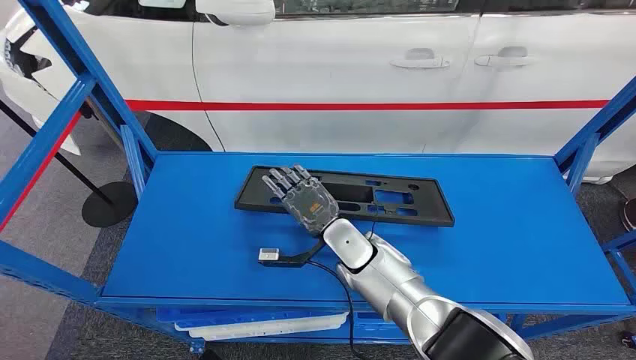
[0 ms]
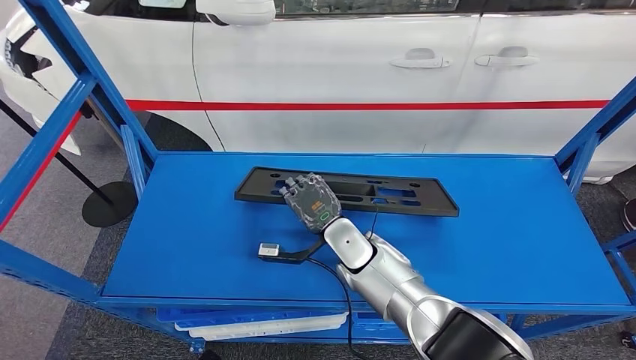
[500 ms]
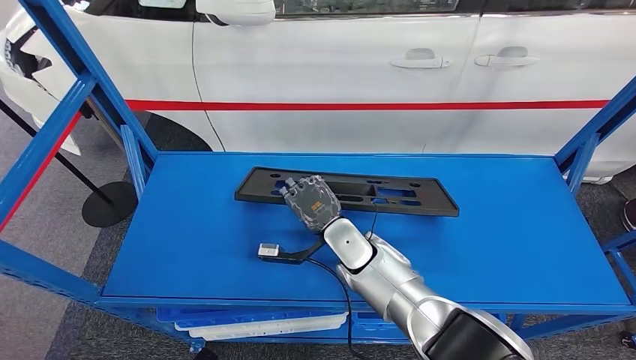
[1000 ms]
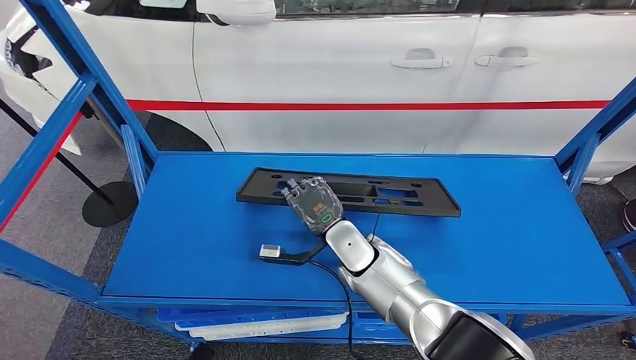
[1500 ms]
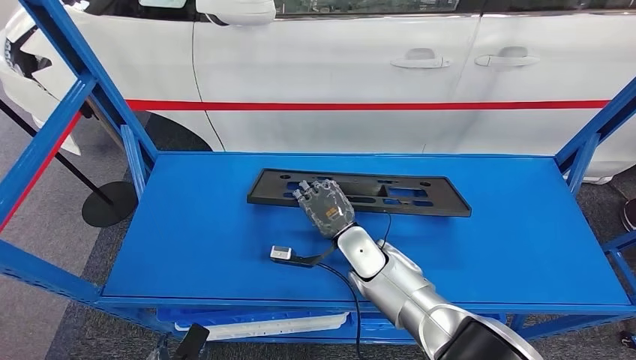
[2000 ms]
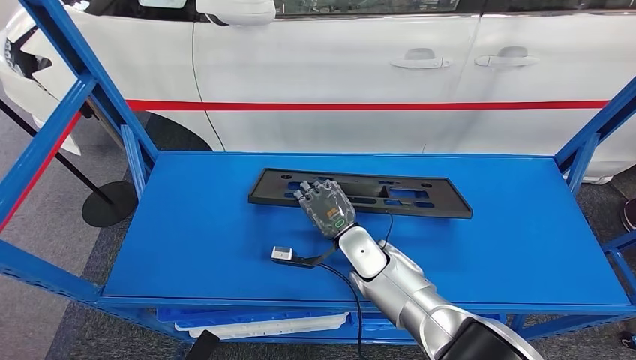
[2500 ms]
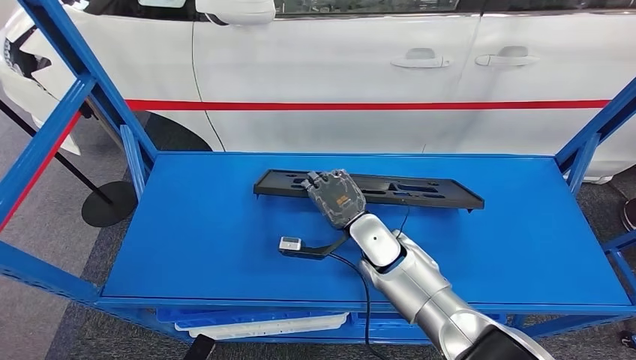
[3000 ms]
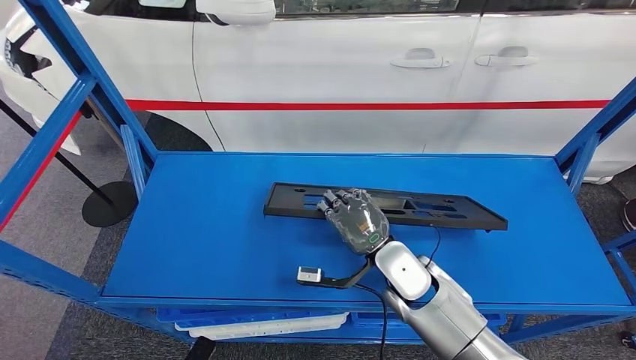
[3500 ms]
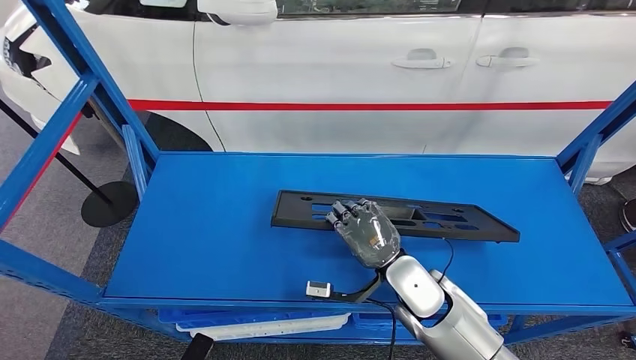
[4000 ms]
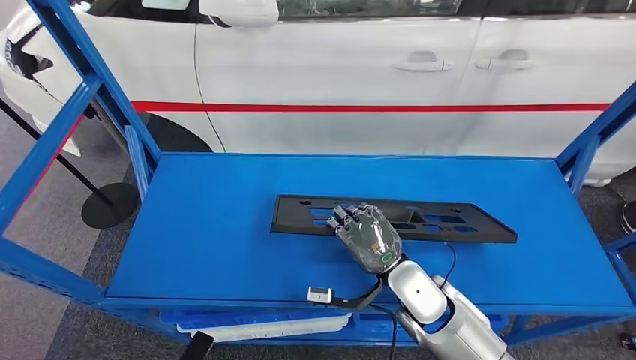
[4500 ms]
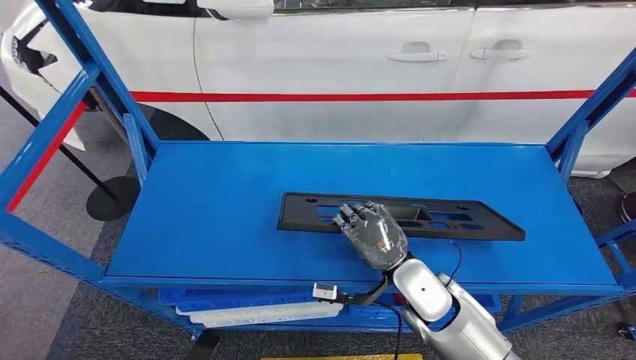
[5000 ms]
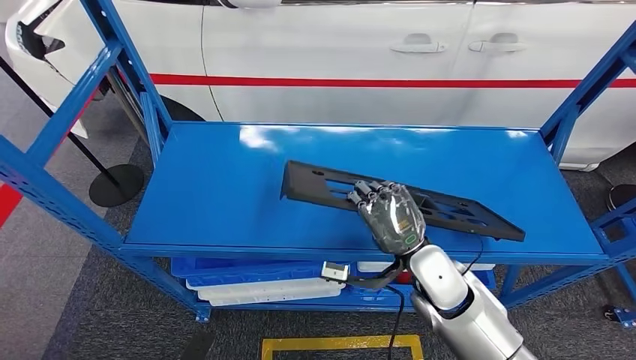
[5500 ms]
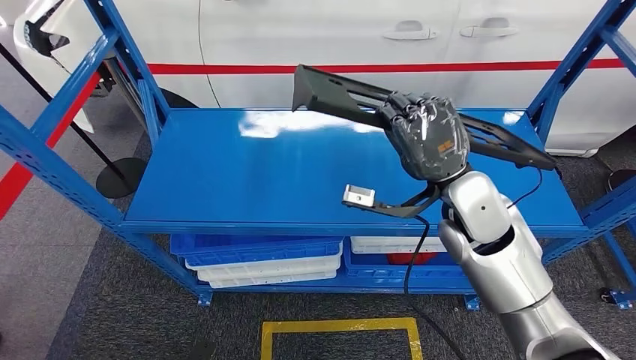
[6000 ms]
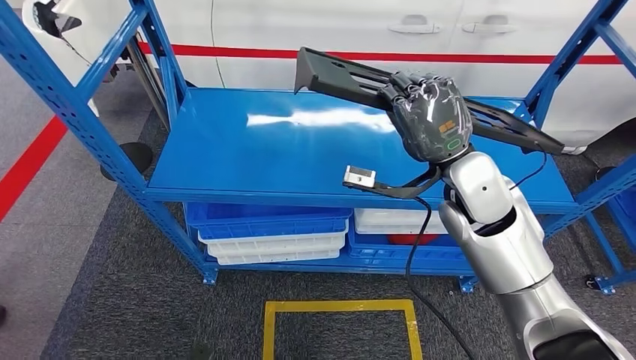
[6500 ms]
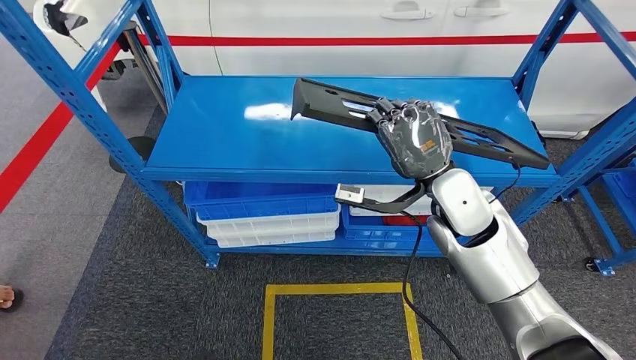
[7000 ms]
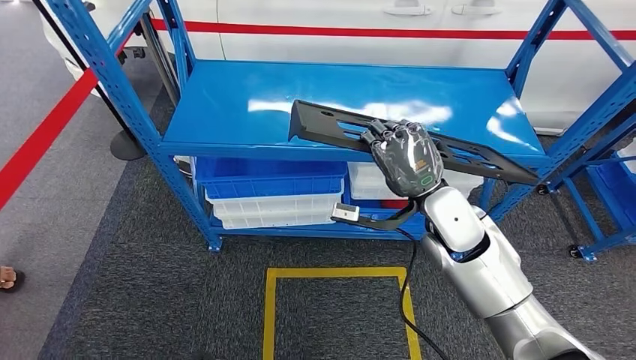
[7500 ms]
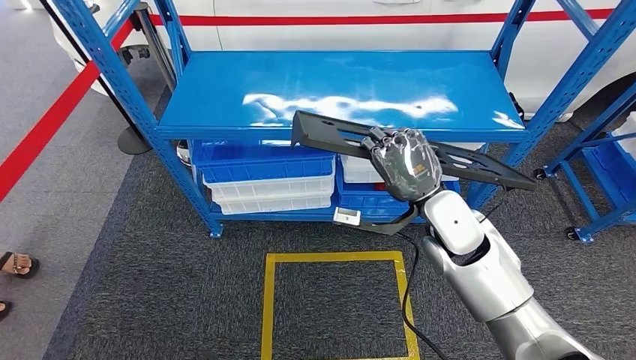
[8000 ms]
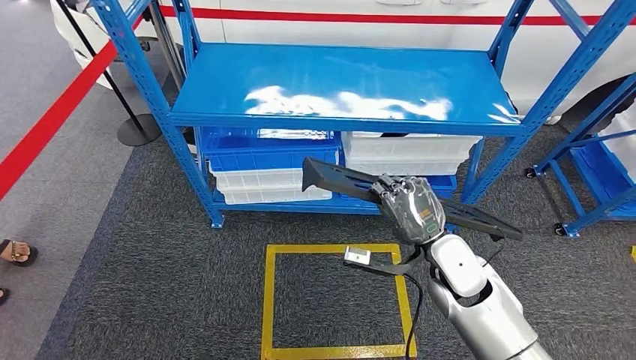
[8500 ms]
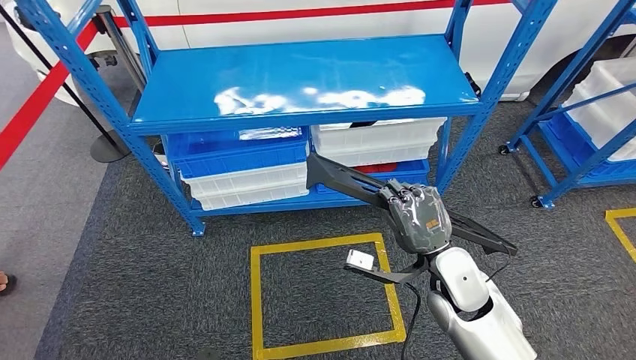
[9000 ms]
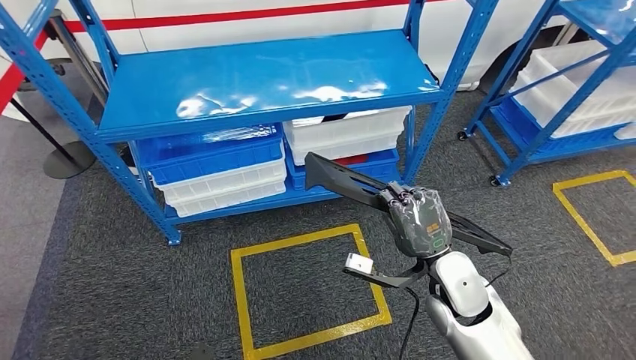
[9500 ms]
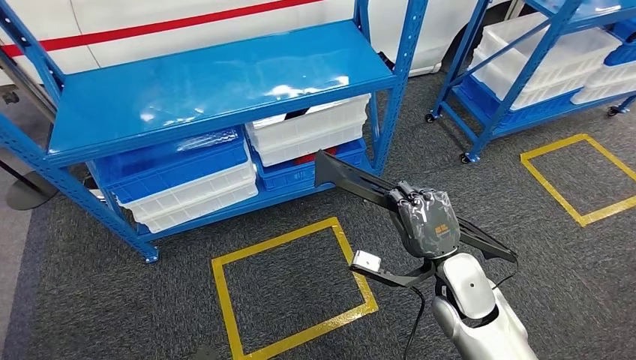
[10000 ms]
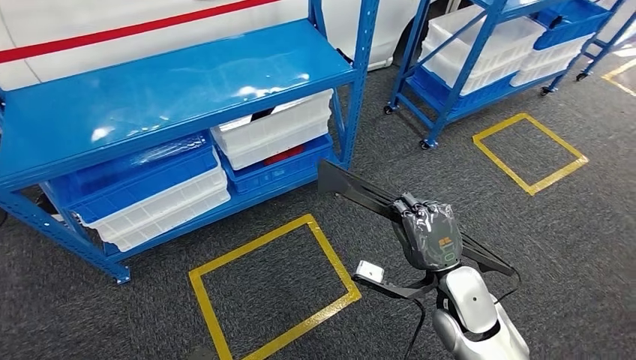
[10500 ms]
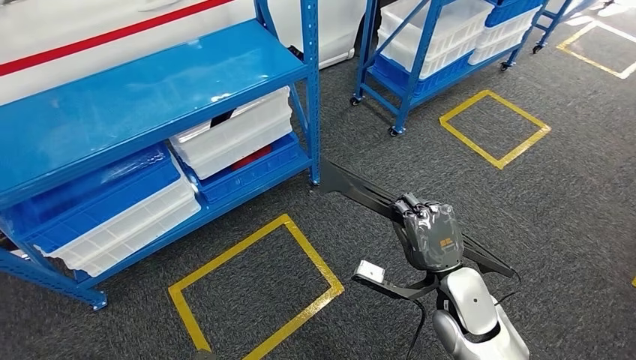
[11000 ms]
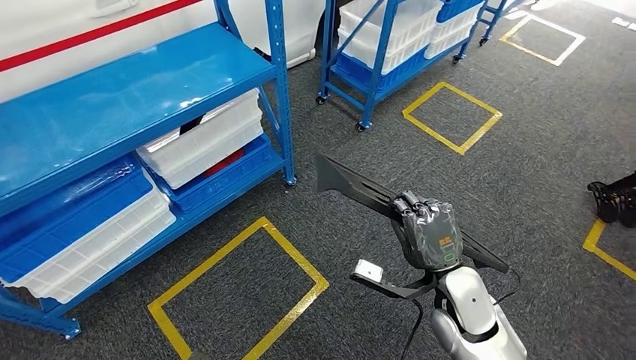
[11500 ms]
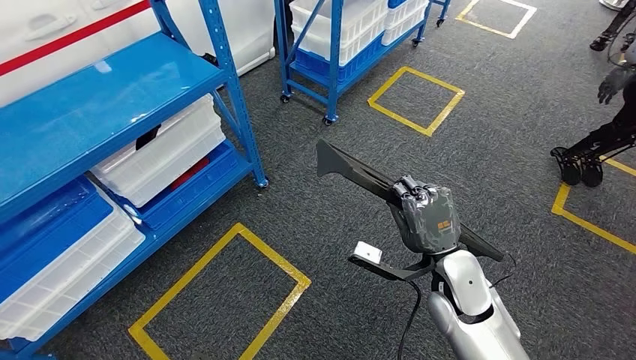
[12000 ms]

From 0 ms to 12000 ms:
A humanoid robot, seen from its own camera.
Step, from 0 ms to 5500 ms: Pick up the large material from the shelf.
From 2000 ms to 4000 ms: The right hand shifts some 10 cm backward and to the right.

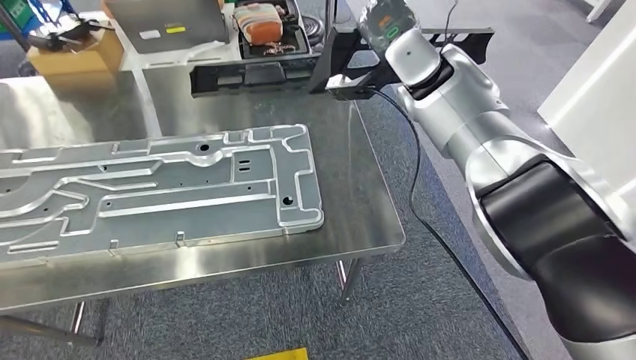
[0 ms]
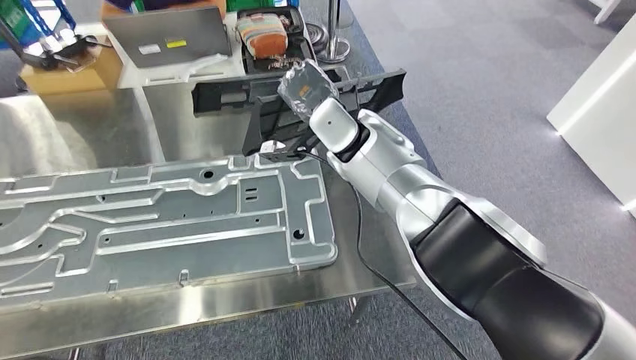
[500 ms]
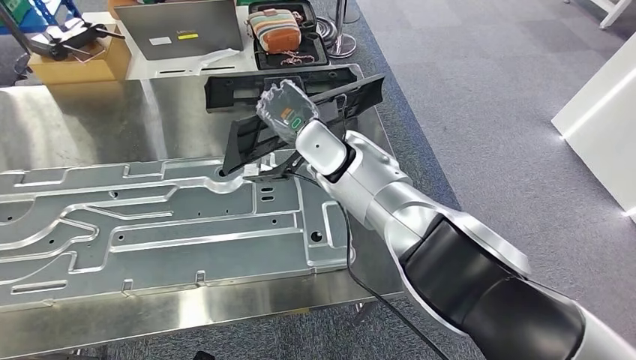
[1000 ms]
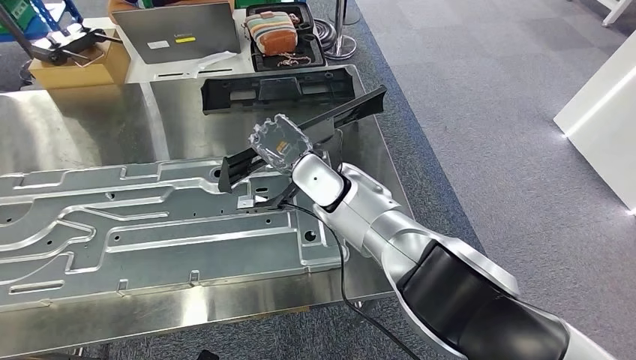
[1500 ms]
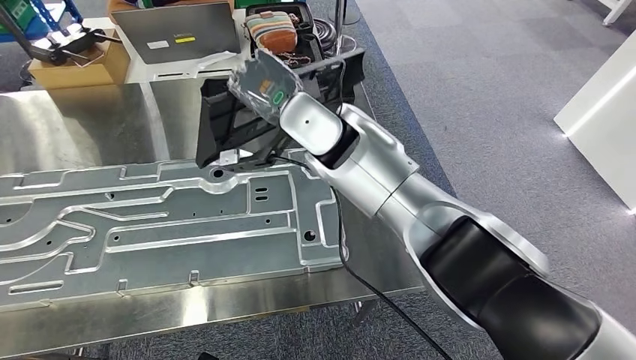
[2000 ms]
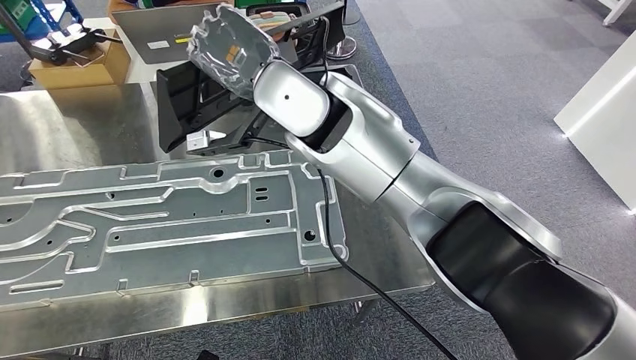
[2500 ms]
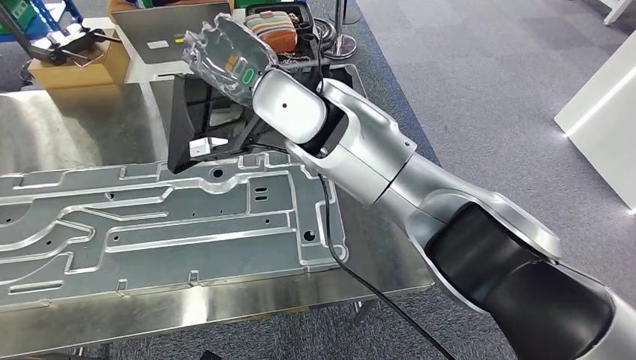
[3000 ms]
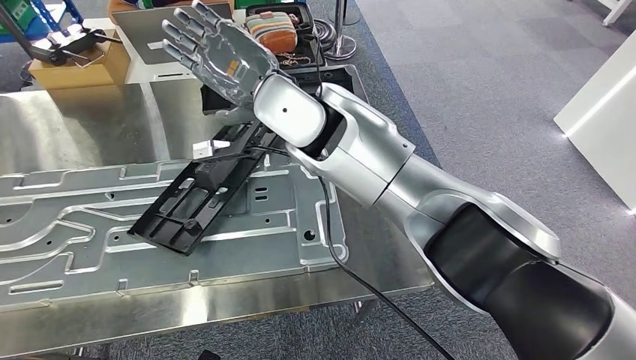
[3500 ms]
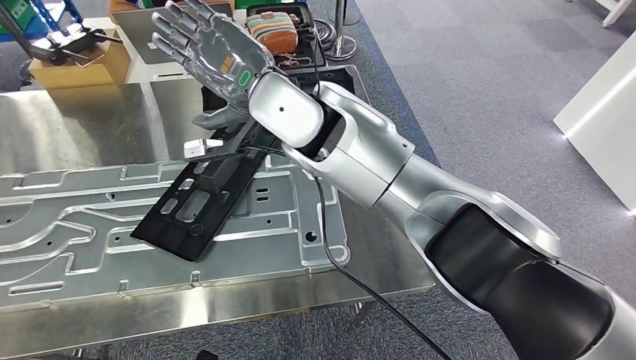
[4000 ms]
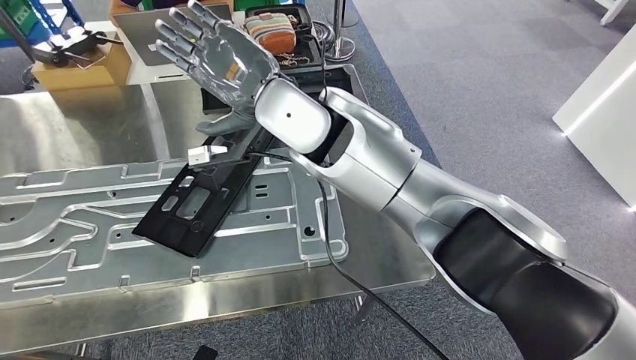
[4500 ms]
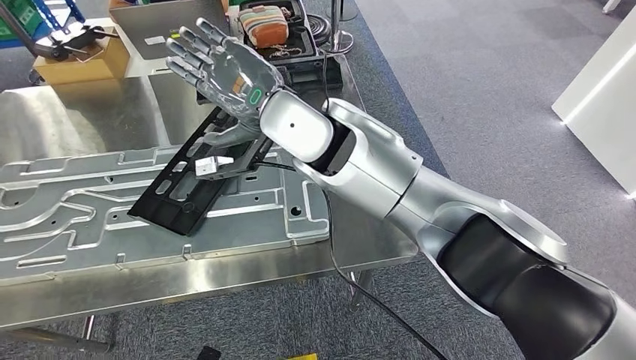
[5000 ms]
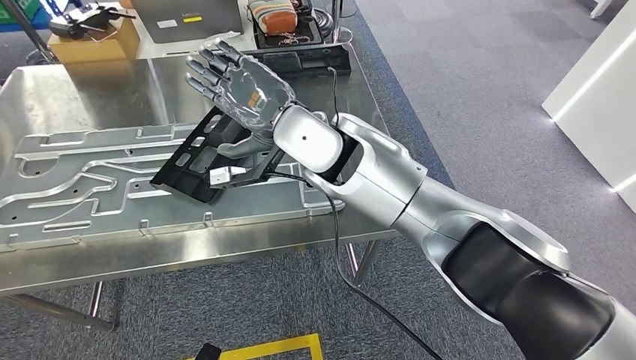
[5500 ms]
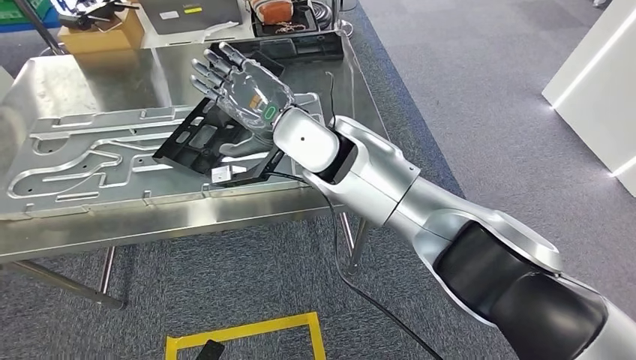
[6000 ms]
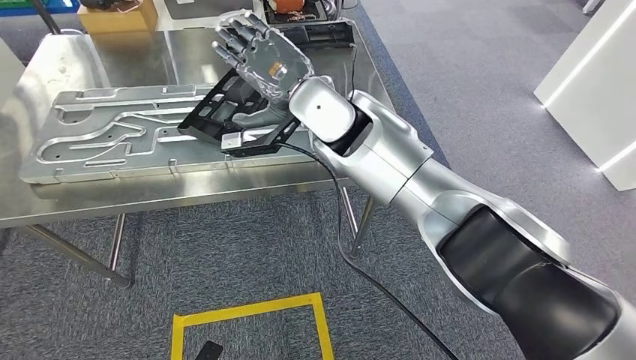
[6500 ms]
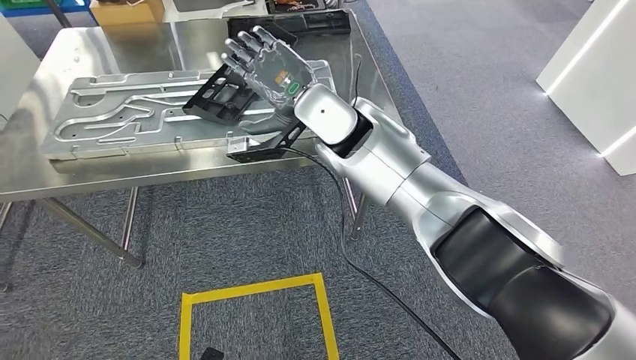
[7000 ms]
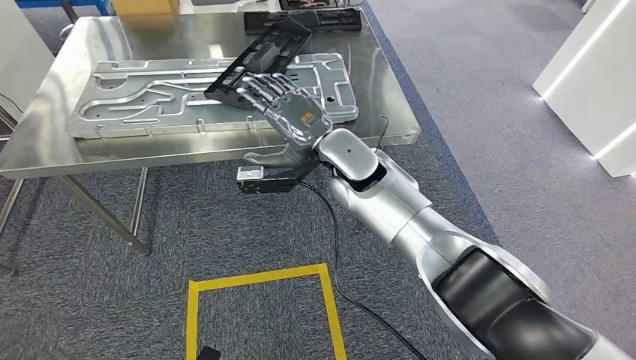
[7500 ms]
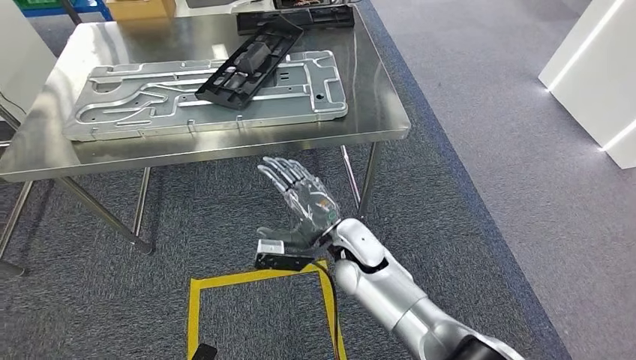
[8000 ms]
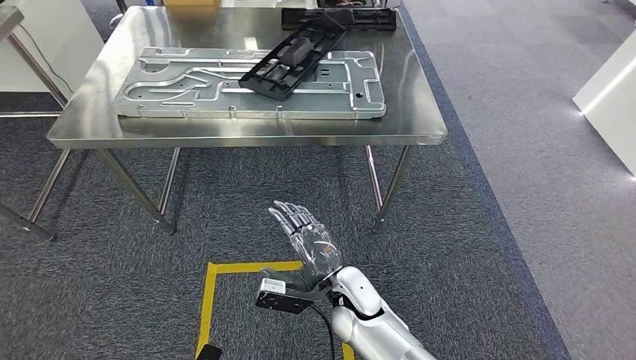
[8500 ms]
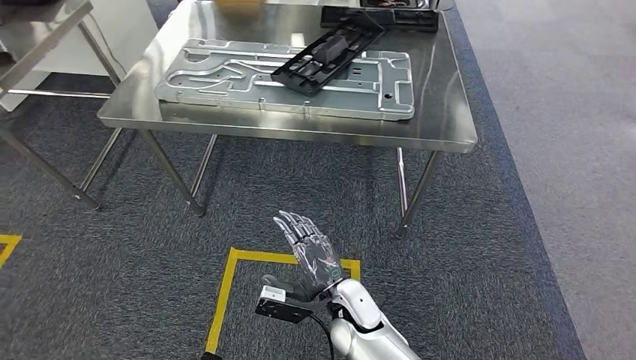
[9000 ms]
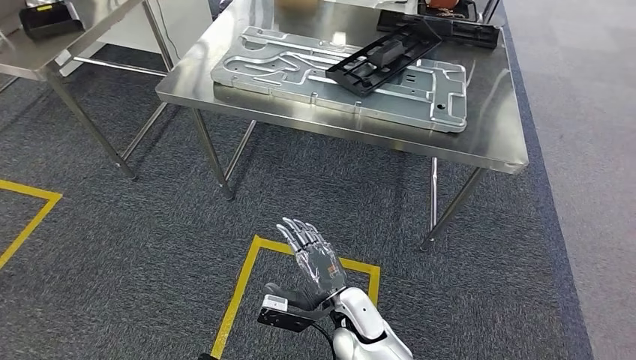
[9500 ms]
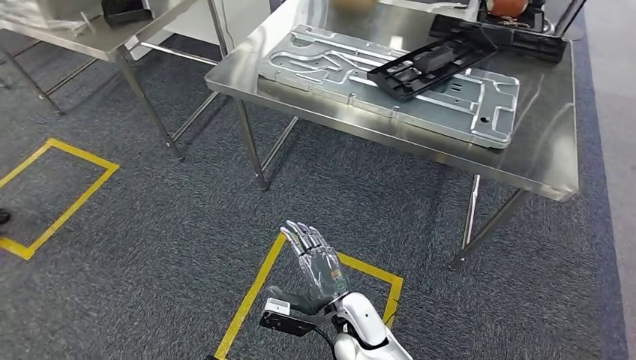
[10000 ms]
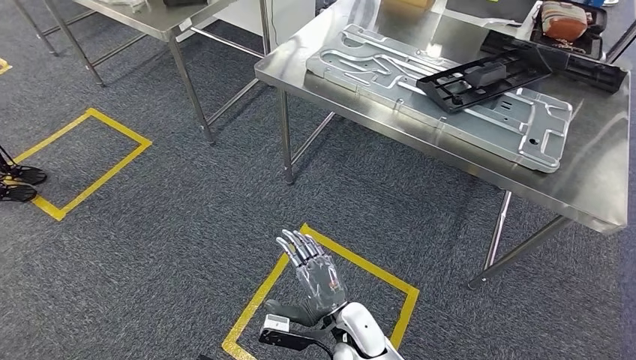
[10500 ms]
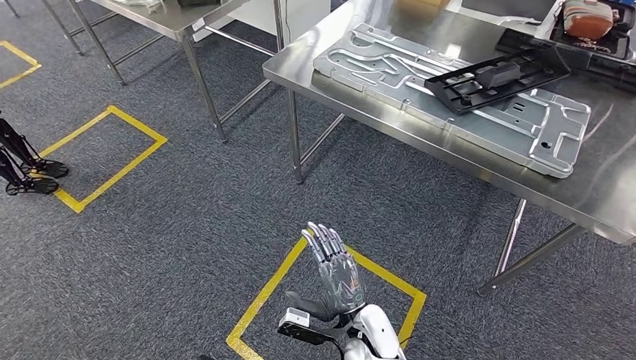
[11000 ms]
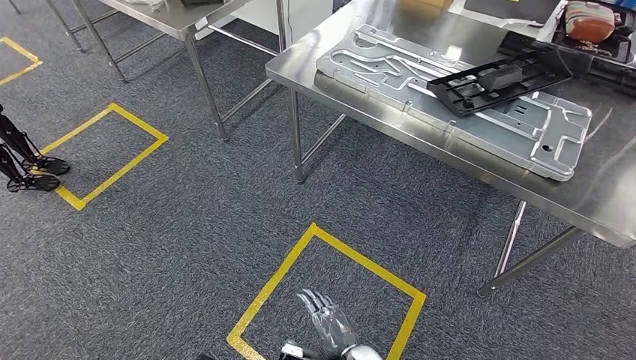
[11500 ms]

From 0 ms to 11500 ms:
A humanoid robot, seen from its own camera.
Step, from 3500 ms to 7000 ms: Insert the large material into the corresponding slot on the workbench.
